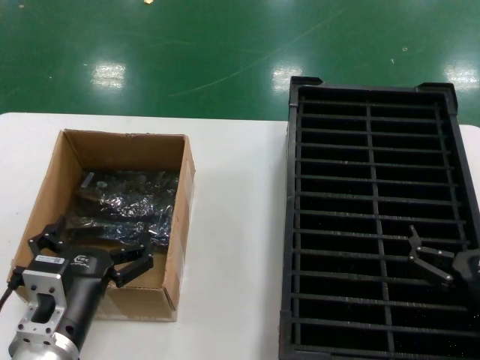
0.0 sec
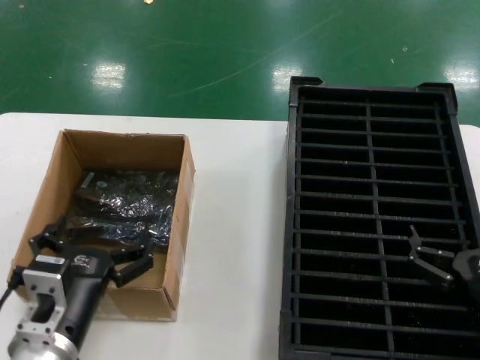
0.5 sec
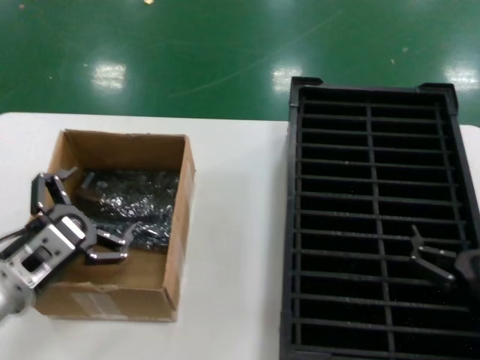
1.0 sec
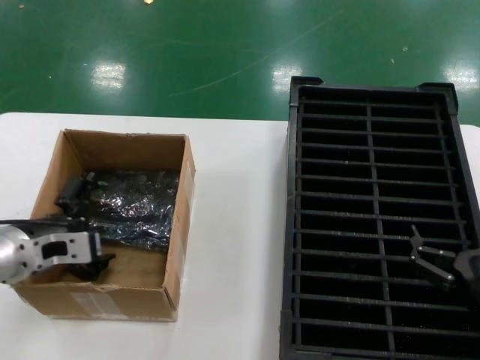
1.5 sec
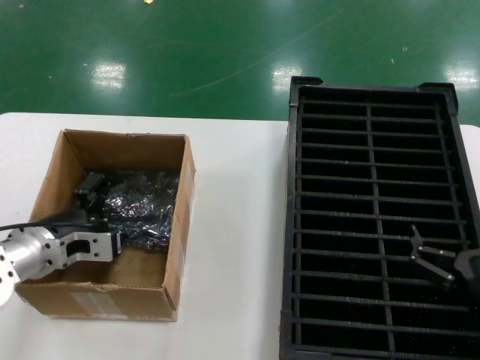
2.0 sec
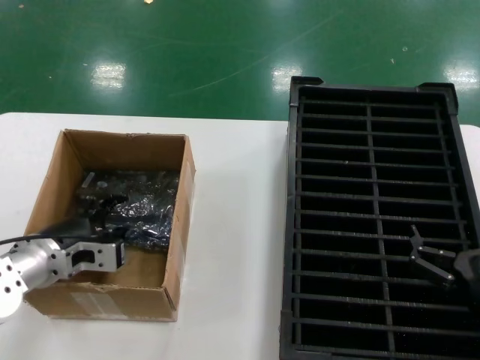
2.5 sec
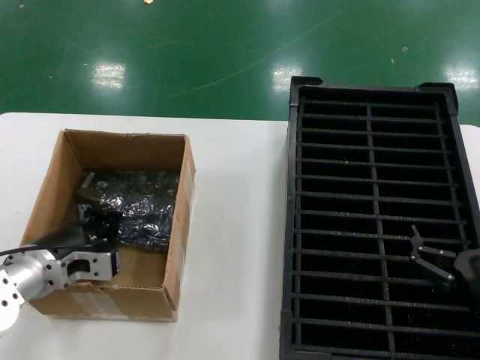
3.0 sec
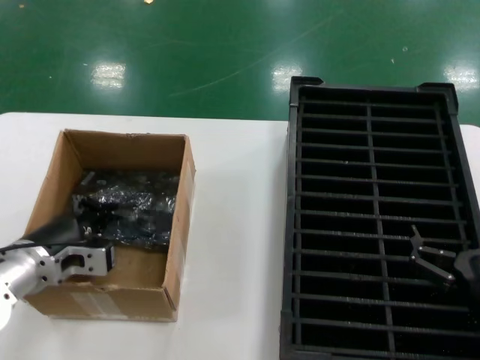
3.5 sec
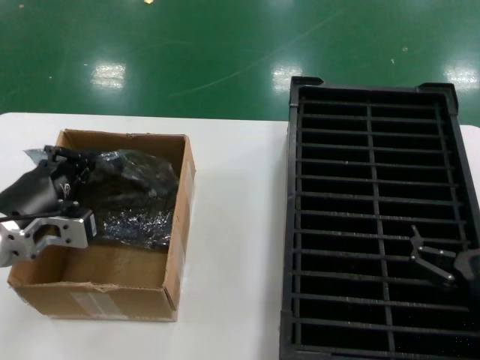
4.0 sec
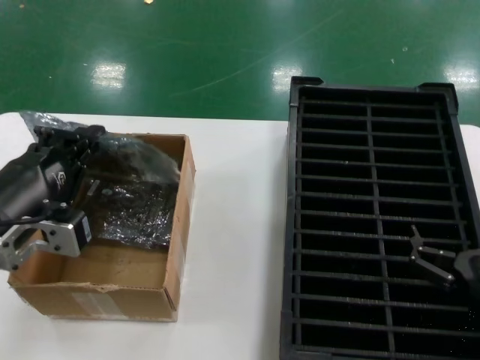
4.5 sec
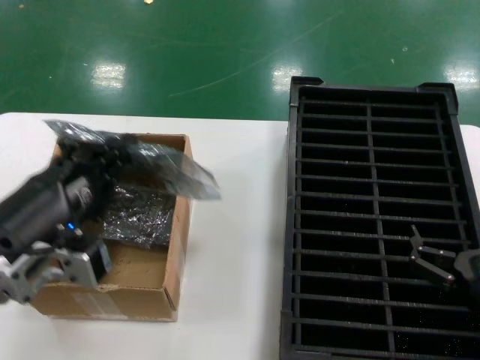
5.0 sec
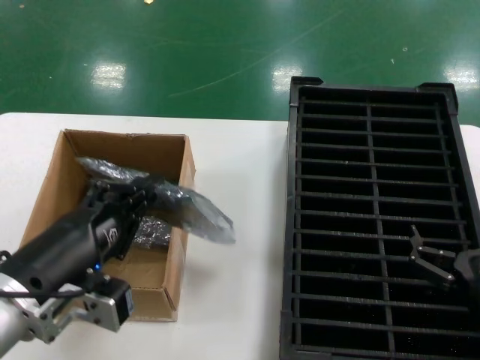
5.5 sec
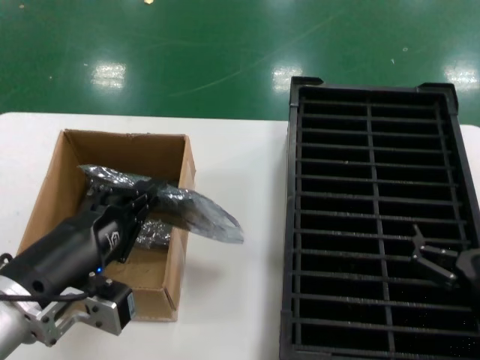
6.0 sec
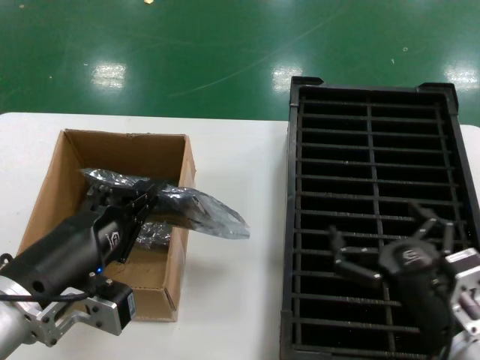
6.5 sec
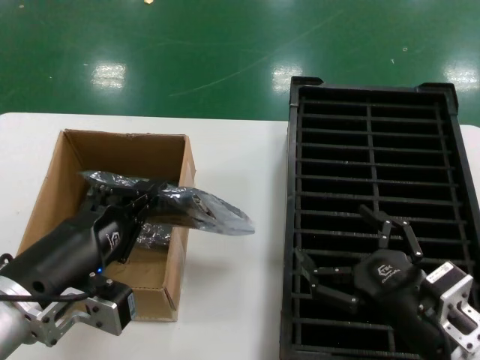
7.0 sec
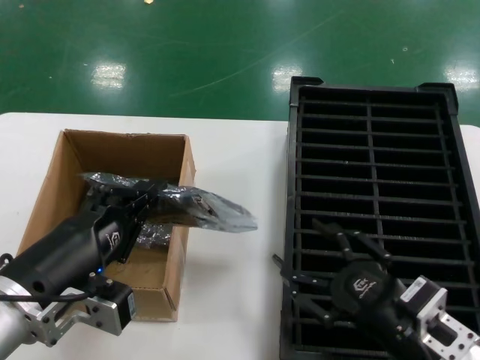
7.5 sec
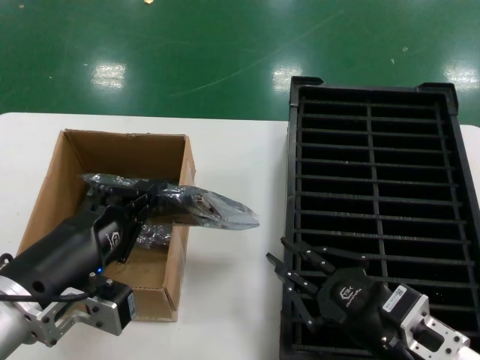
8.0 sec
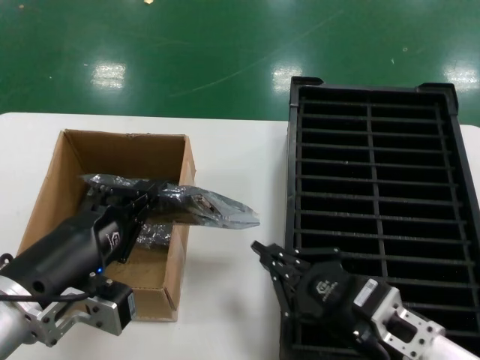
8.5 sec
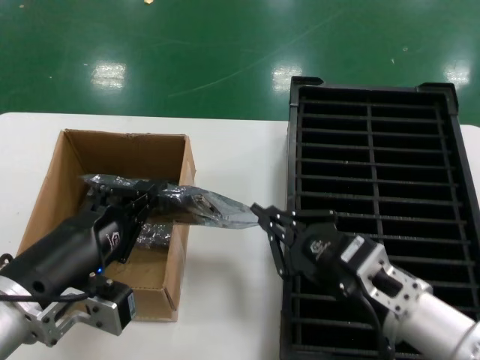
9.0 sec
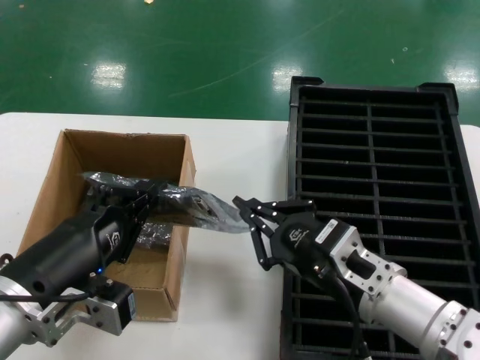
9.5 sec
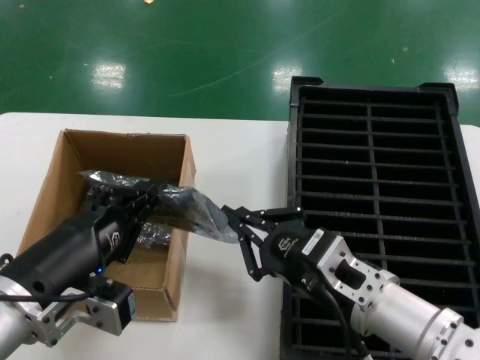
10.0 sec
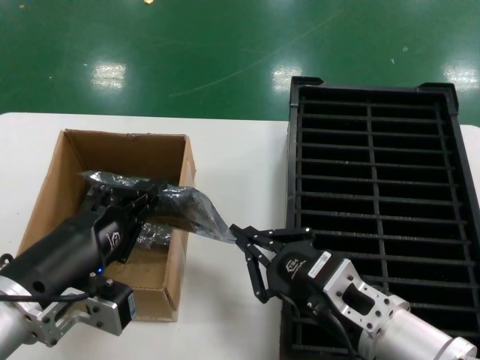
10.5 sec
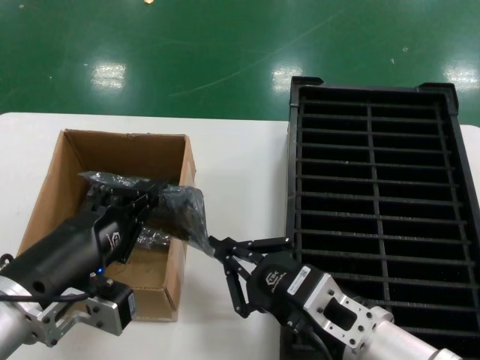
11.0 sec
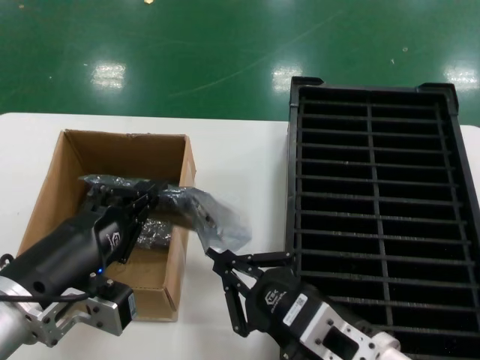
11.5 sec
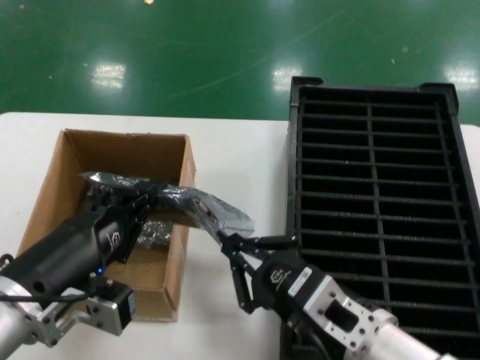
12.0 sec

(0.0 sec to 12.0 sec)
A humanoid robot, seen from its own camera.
Task of the whole recording: take out graphics card from box remove packaging put into black container.
Step, 0.0 sec - 3.0 sec: Grasp the bag.
Step, 3.5 sec - 5.5 sec: Lift the bag.
0.0 sec - 2.0 sec: The left hand shifts approximately 15 cm forward, to the left and upward.
2.0 sec - 4.0 sec: The left hand shifts by some 5 cm.
4.0 sec - 6.0 sec: The left hand is displaced backward and to the right by some 15 cm.
6.0 sec - 8.0 sec: The right hand moves to the left, about 5 cm.
8.0 sec - 10.0 sec: The right hand is displaced to the left and forward by some 10 cm.
10.0 sec - 12.0 sec: The right hand is displaced backward by approximately 5 cm.

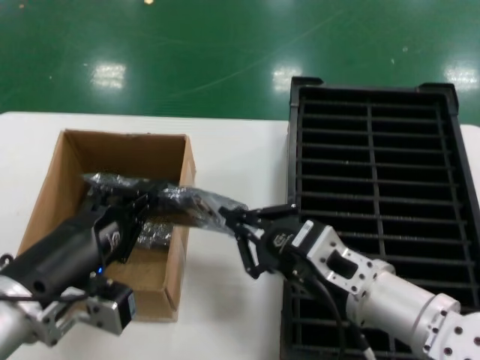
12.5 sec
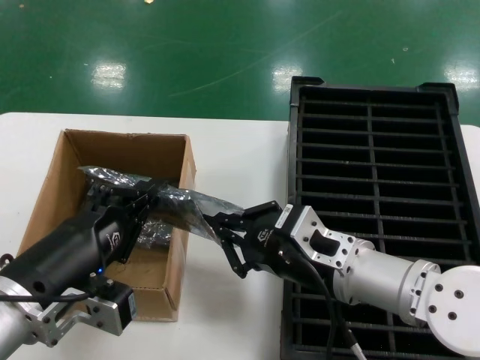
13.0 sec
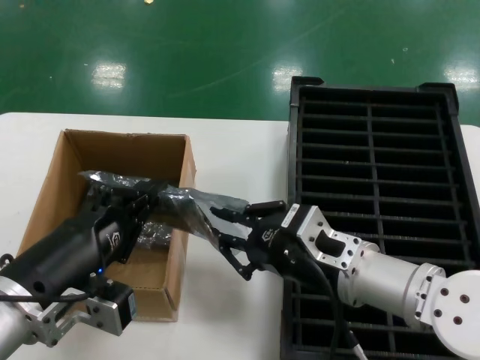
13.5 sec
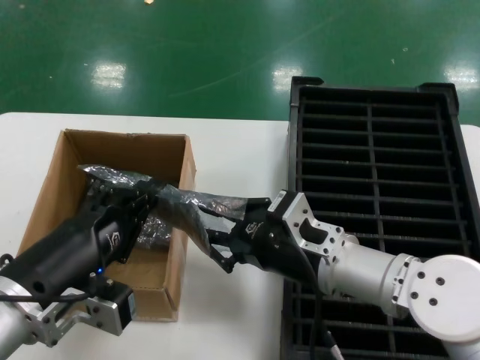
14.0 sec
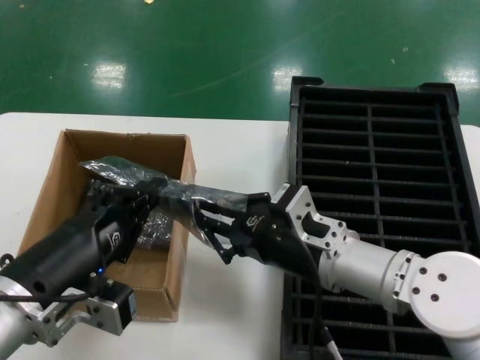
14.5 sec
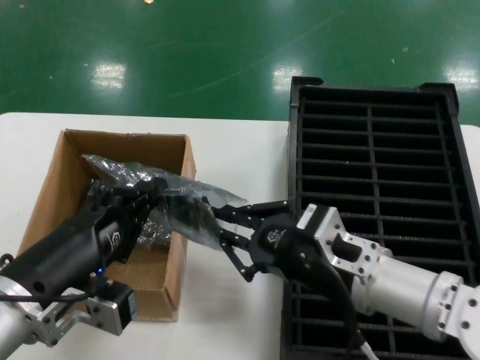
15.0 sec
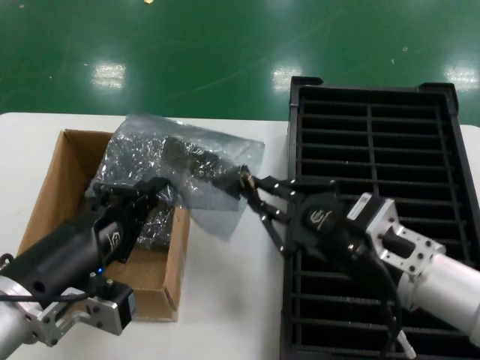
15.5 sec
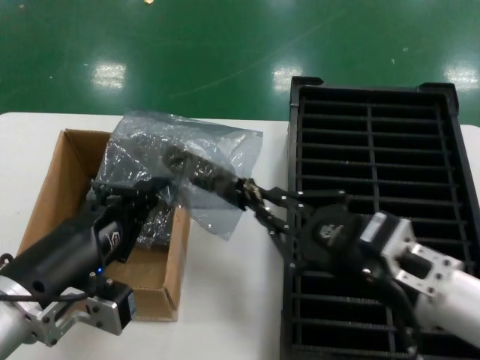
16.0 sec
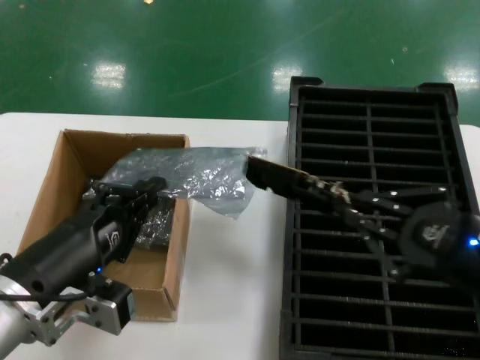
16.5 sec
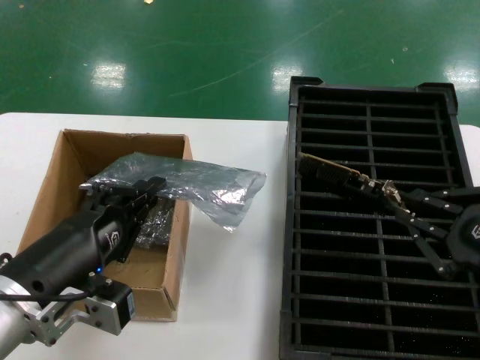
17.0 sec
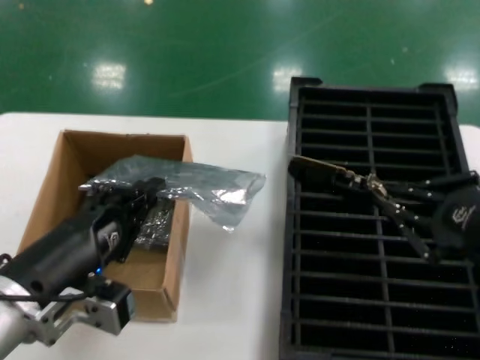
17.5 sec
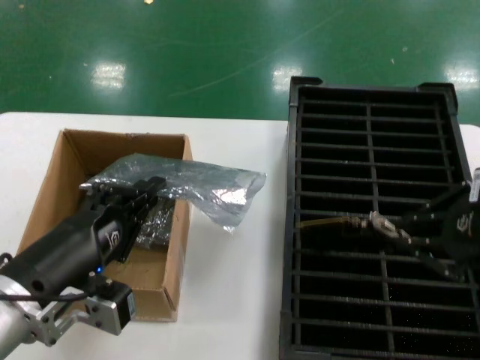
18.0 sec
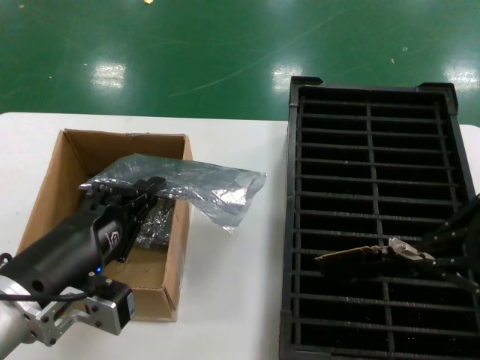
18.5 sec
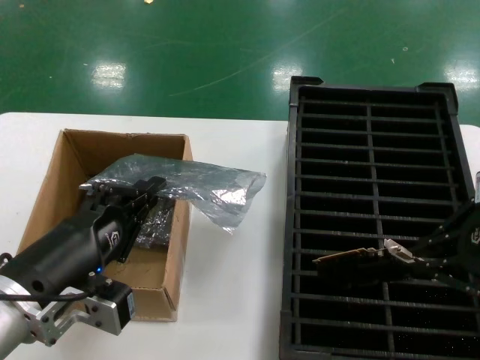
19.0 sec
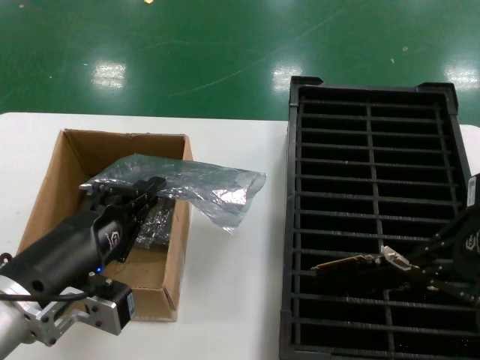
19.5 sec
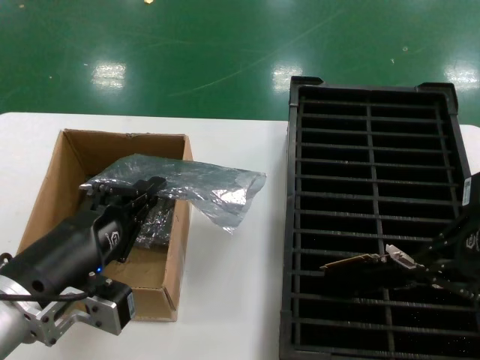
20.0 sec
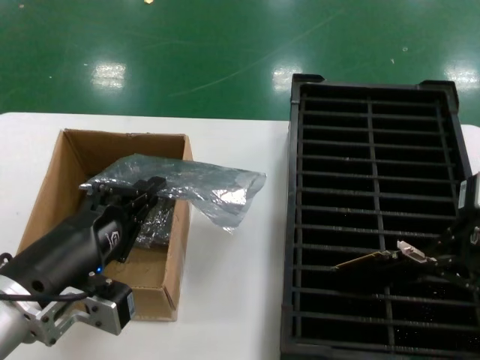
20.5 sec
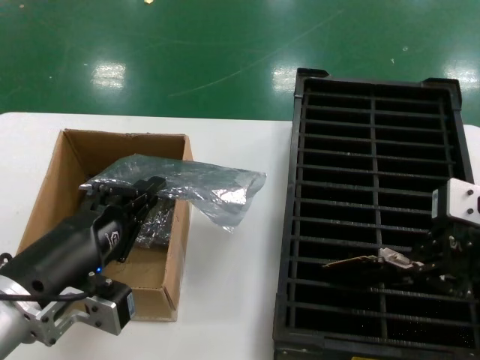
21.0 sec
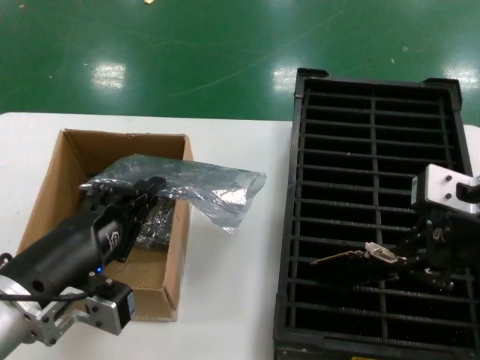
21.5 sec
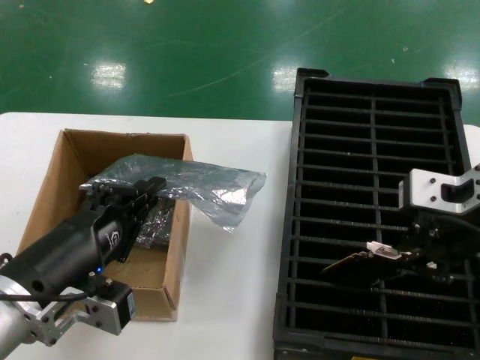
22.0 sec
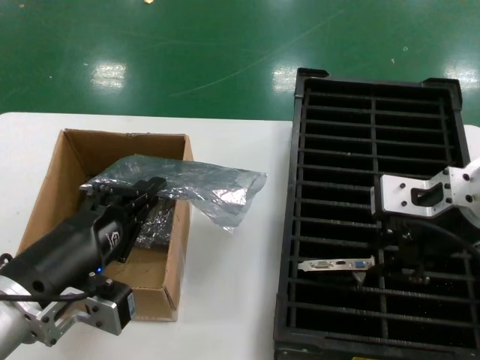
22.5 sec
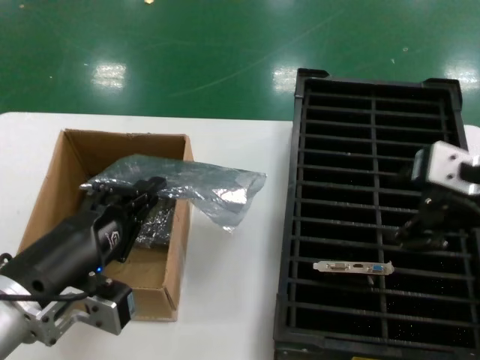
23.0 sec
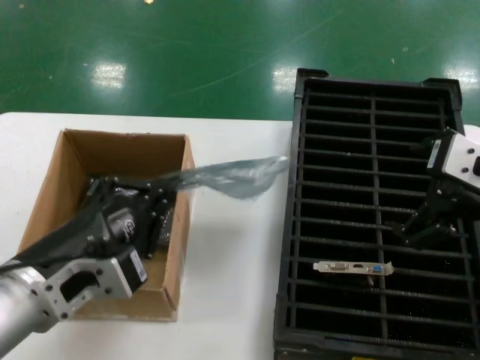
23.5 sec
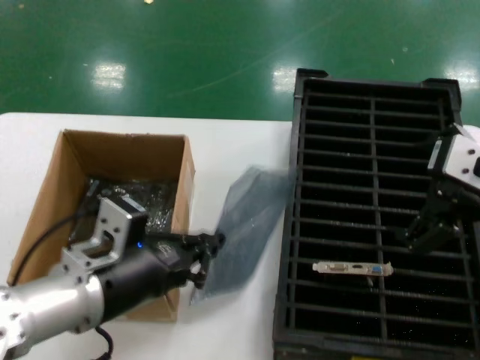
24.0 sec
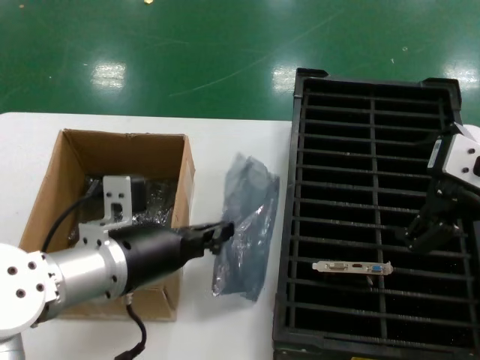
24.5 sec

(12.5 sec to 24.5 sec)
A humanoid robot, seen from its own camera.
Task of the whole recording: take out graphics card from box remove packaging put into black container.
Step, 12.5 sec - 17.0 sec: Take out the hard disk of the bag.
Step, 17.5 sec - 22.5 sec: Place the hard disk in the hard disk enclosure.
12.5 sec - 14.5 sec: The right hand travels forward by approximately 5 cm.
14.5 sec - 16.5 sec: The right hand shifts some 20 cm to the right, backward and upward.
16.5 sec - 18.5 sec: The right hand goes some 10 cm upward.
18.5 sec - 20.5 sec: There are only small adjustments of the hands.
20.5 sec - 22.5 sec: The right hand travels to the left by about 10 cm.
22.5 sec - 24.5 sec: The right hand travels to the right by some 5 cm, while the left hand is displaced forward by about 10 cm.

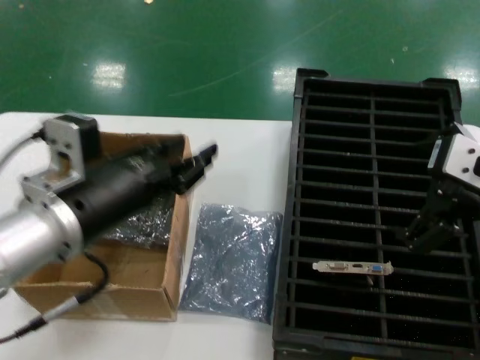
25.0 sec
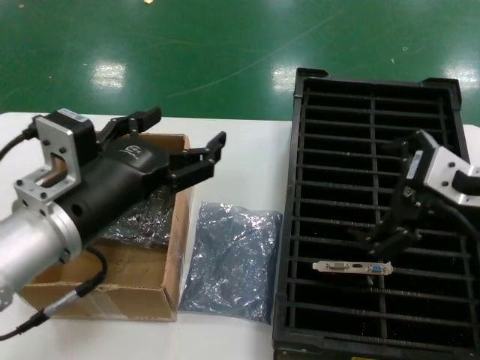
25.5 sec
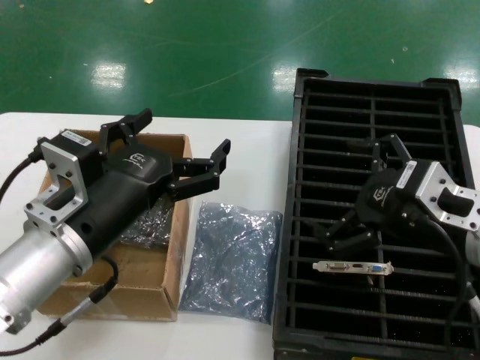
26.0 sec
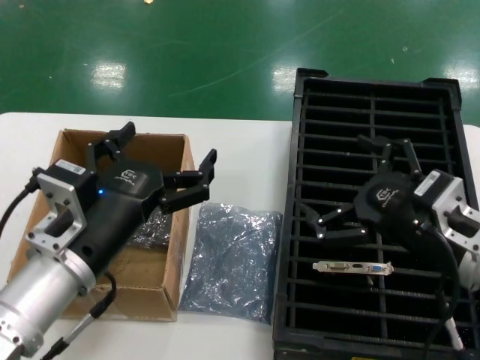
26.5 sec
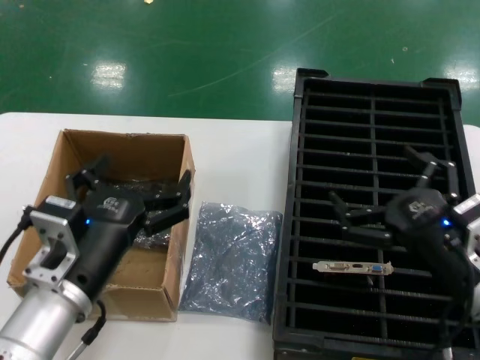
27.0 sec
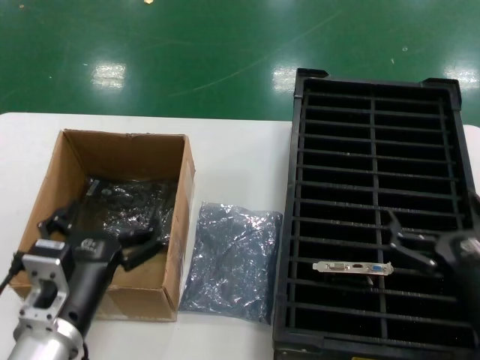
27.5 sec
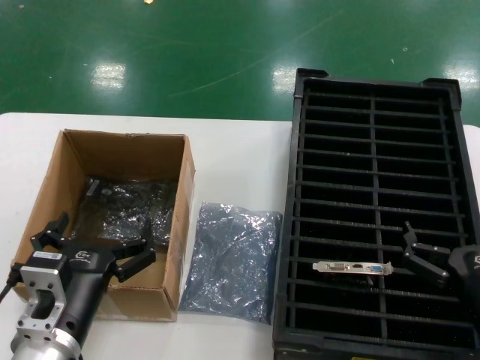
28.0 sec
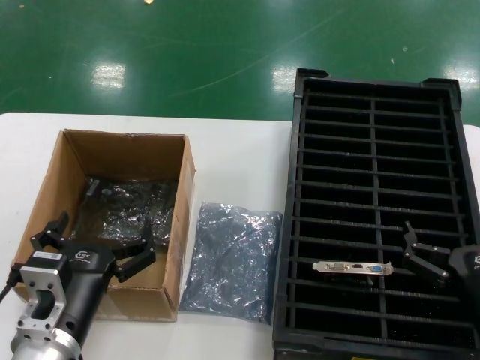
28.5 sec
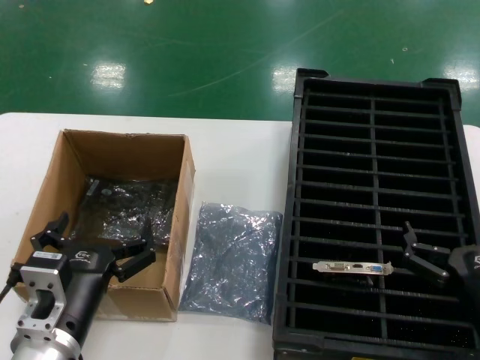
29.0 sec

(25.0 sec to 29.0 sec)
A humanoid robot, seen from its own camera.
Task of the whole recording: take out graphics card from box remove packaging put into black container.
25.0 sec - 27.0 sec: The hands both shift downward by approximately 15 cm.
27.0 sec - 29.0 sec: The hands both shift downward by some 5 cm.
